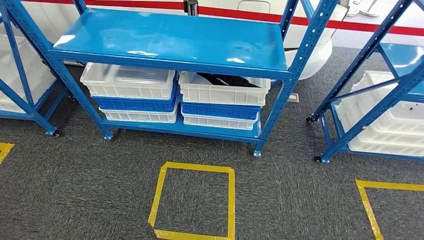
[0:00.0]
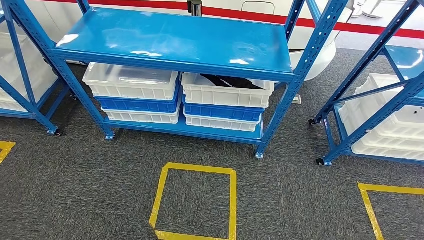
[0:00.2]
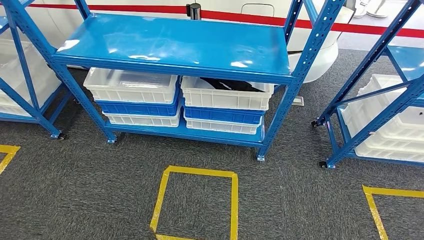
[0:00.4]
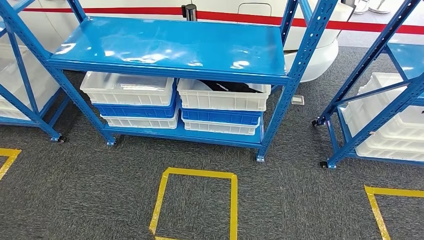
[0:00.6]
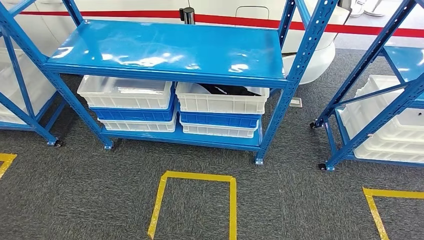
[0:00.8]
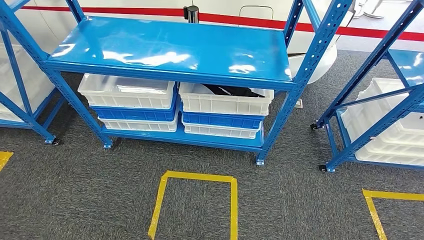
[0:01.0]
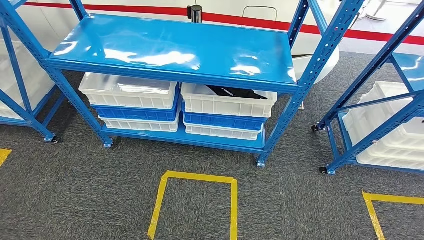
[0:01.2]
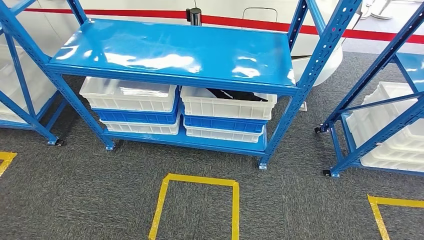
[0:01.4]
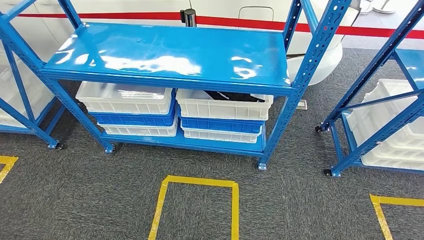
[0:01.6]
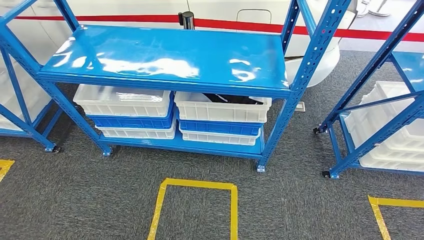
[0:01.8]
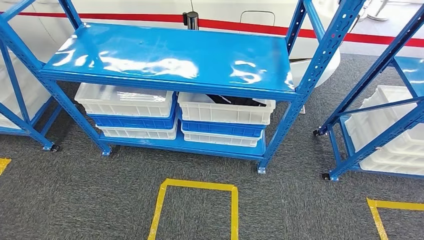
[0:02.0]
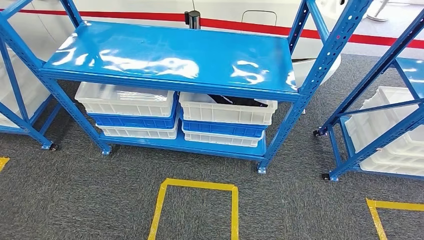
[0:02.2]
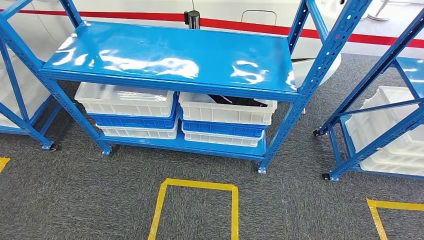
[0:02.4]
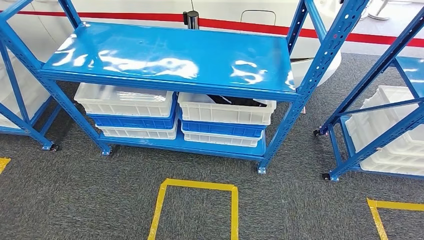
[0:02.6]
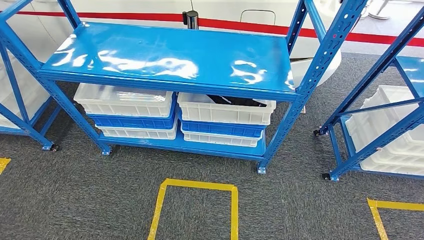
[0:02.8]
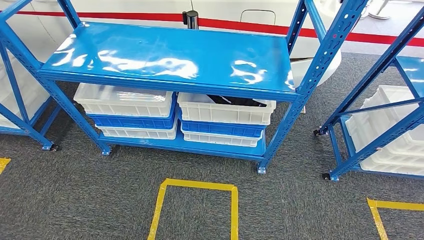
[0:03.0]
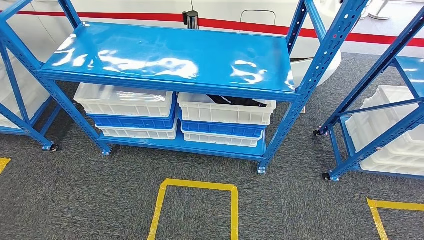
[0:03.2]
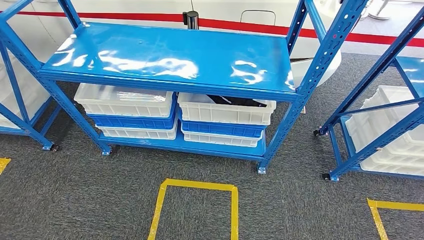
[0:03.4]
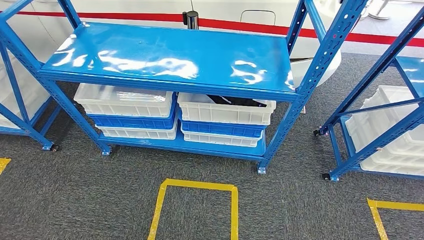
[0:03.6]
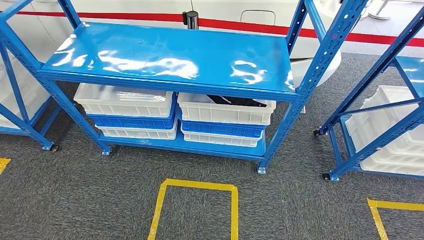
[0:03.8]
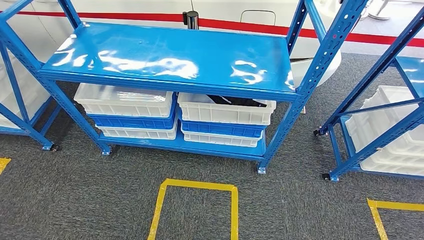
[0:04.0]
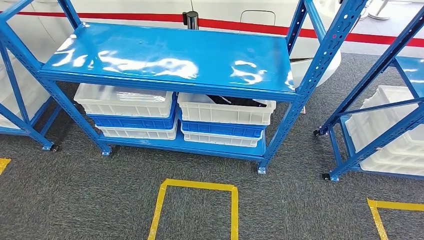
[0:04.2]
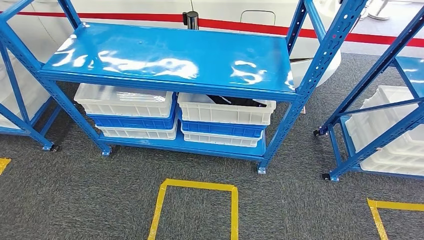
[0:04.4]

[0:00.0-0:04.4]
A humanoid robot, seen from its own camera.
Step, 0:00.0 to 0:04.4: Move to the initial position of the shelf.
0:03.0 to 0:04.4: There are only small adjustments of the hands.
